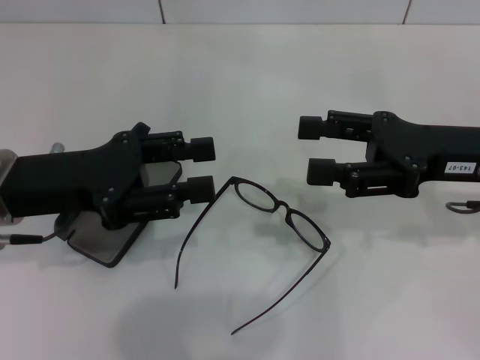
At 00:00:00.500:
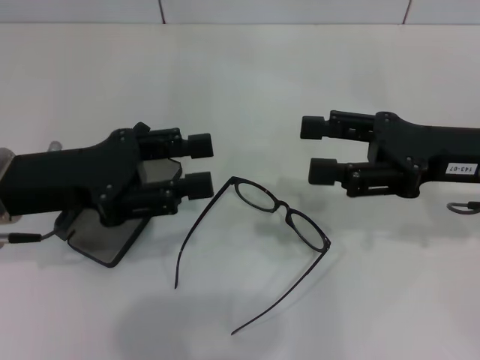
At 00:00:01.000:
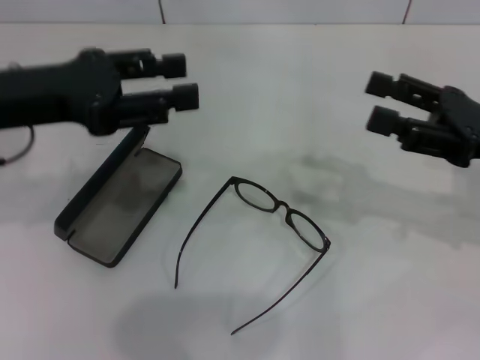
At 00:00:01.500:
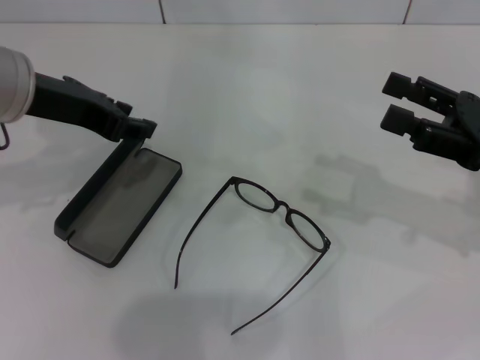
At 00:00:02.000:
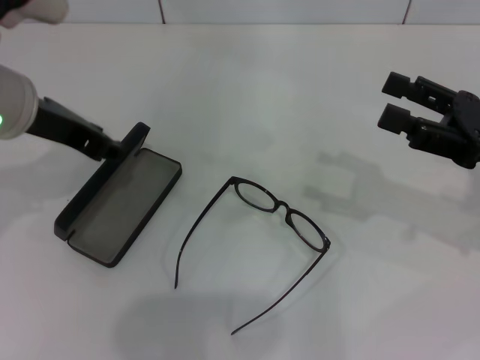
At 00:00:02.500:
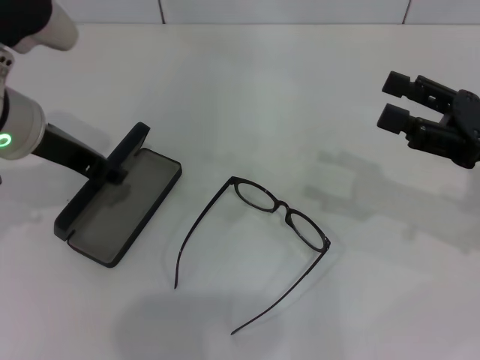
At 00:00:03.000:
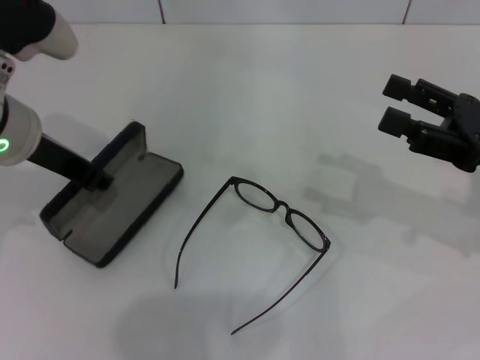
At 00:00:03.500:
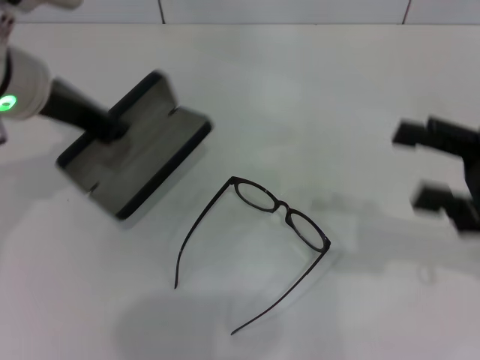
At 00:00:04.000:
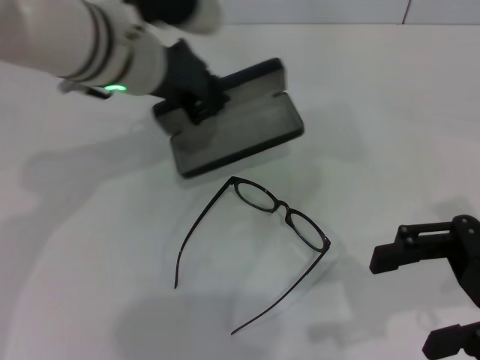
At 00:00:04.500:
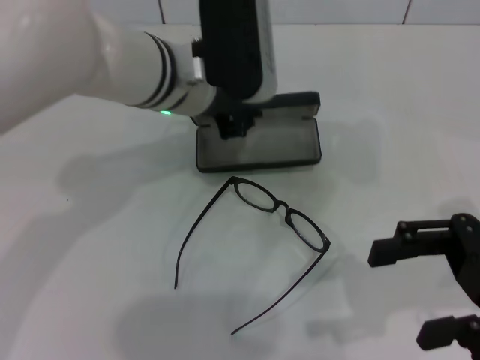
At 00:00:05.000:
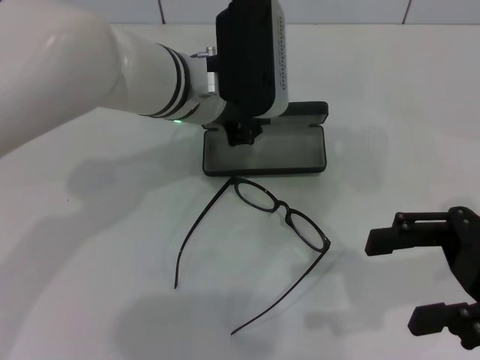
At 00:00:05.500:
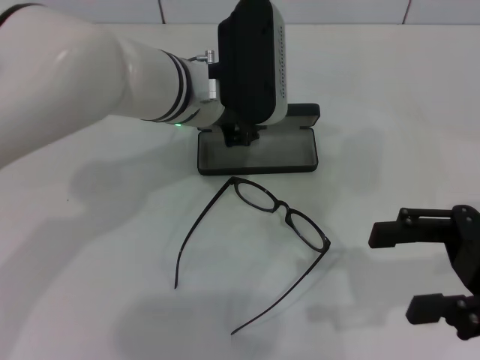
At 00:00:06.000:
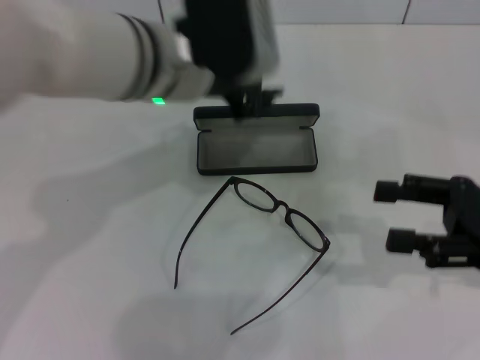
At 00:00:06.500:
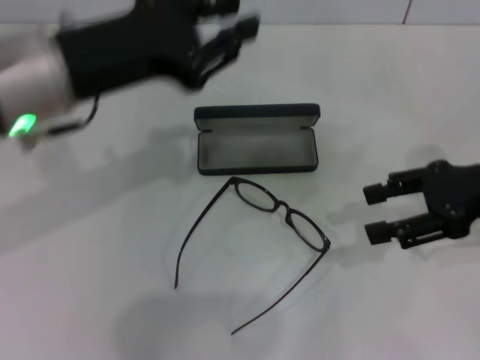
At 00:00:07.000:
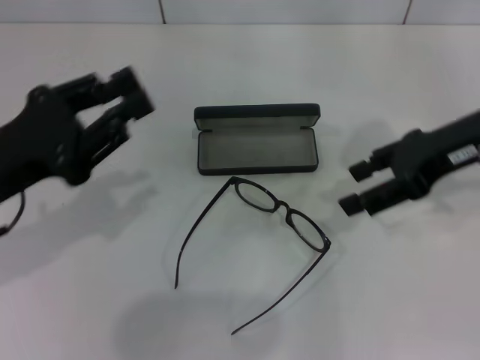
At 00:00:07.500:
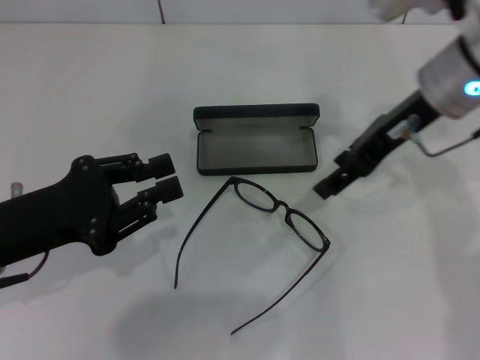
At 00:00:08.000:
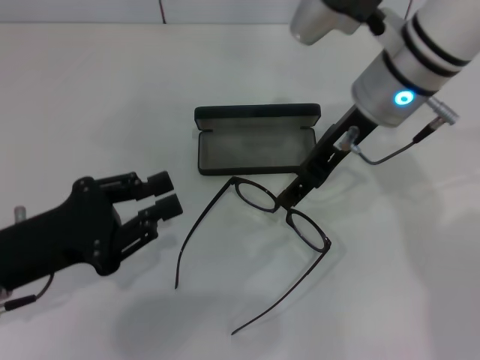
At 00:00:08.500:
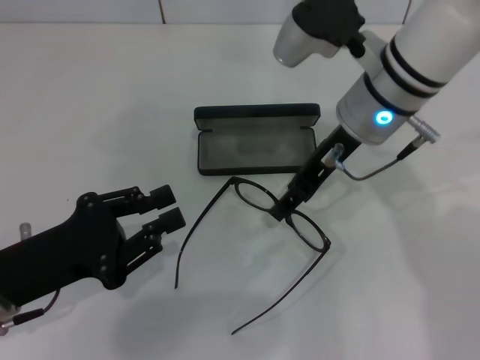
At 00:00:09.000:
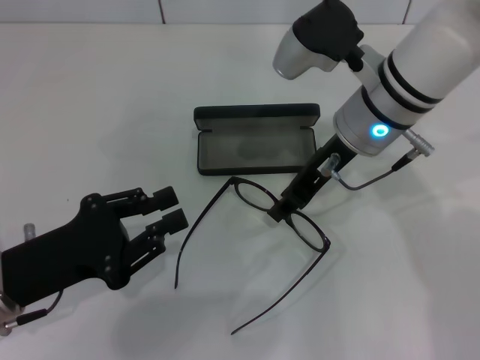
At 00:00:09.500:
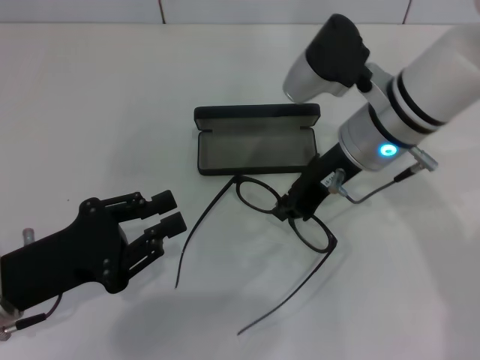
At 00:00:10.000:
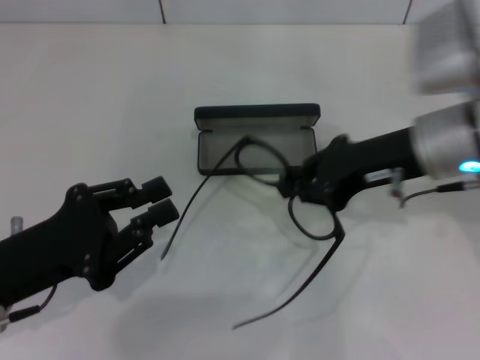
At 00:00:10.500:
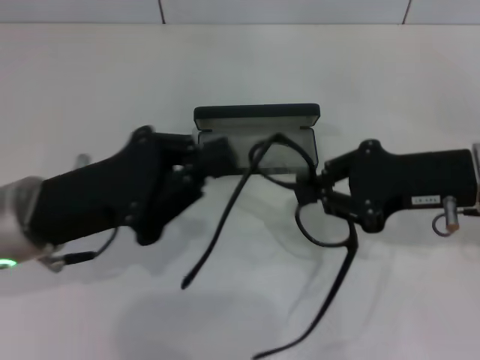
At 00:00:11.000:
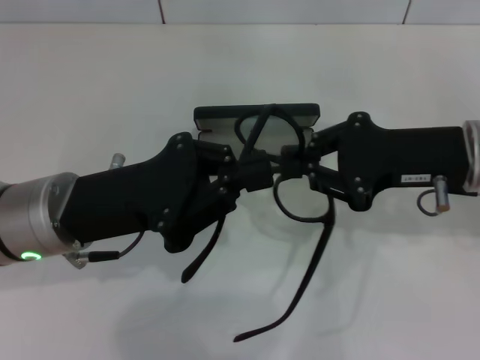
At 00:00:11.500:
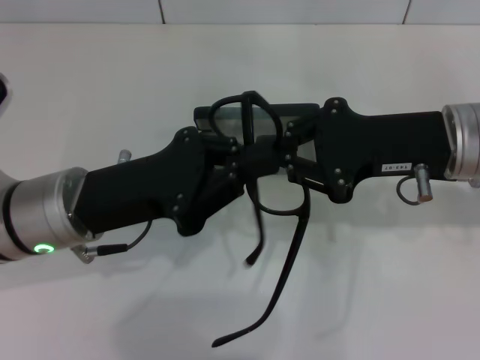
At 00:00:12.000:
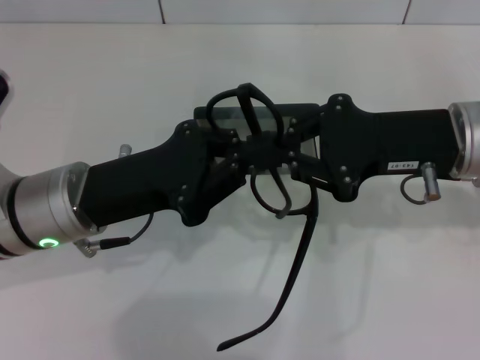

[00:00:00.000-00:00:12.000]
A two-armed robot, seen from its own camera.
Step, 00:00:00.000 to 00:00:03.000: Grab the glasses case with your left hand.
Step, 00:00:03.500 to 00:00:05.500: Place the glasses case in the center of the table with your left hand.
Step, 00:00:06.000 to 00:00:09.000: Grab the eyeglass frame with your right hand.
00:00:00.000 to 00:00:02.000: The left gripper heads upward and forward, covering some 10 cm, while the right gripper travels to the right by roughly 5 cm.
00:00:02.000 to 00:00:04.000: The left gripper is displaced to the right by about 10 cm, and closes its fingers.
00:00:06.000 to 00:00:08.000: The left gripper moves to the left, backward and downward, about 25 cm. Meanwhile the right gripper goes some 20 cm to the left and forward.
00:00:08.000 to 00:00:10.000: The right gripper goes some 10 cm to the right and backward, and closes.
00:00:10.000 to 00:00:12.000: The left gripper heads forward and to the right, covering approximately 10 cm, and closes its fingers.

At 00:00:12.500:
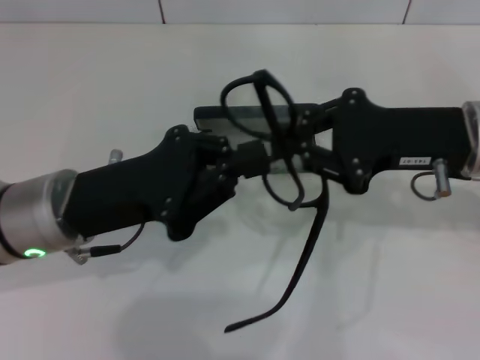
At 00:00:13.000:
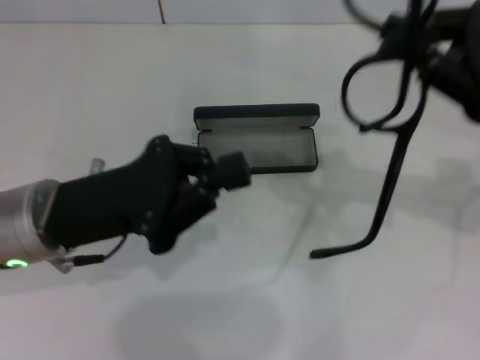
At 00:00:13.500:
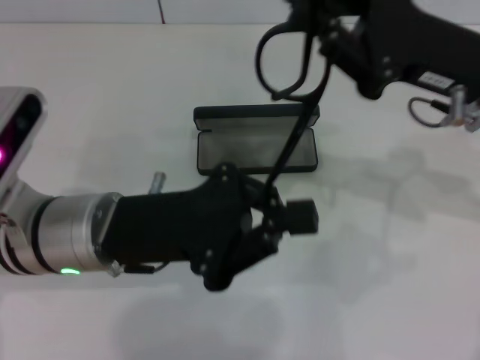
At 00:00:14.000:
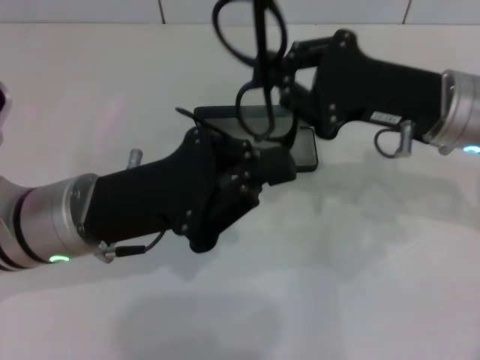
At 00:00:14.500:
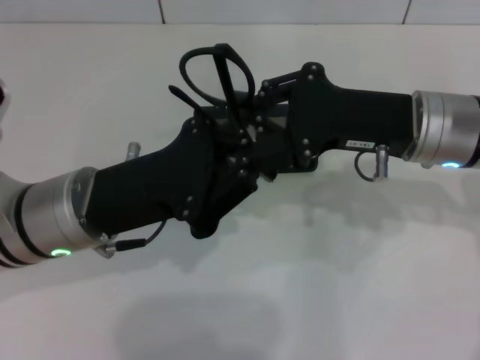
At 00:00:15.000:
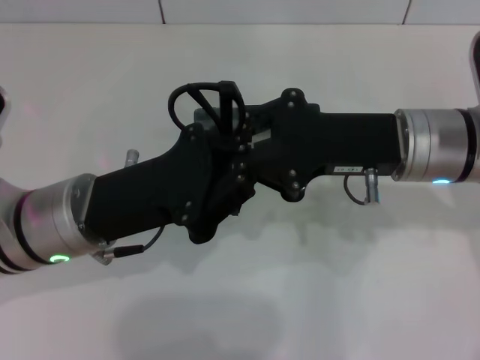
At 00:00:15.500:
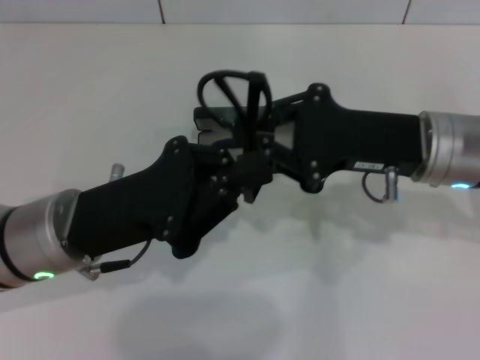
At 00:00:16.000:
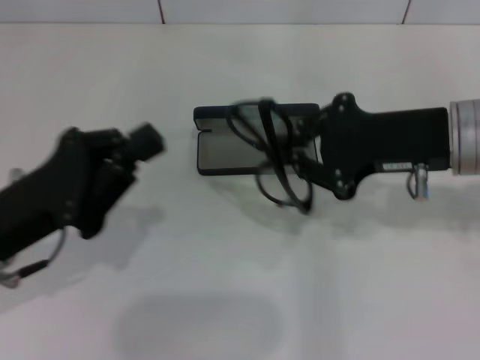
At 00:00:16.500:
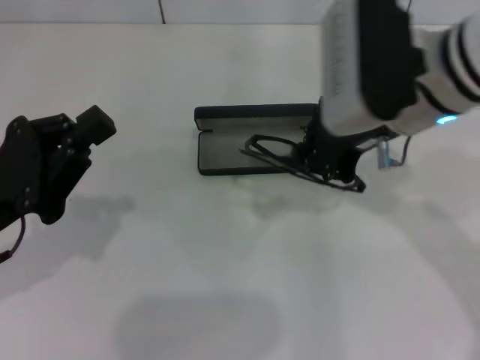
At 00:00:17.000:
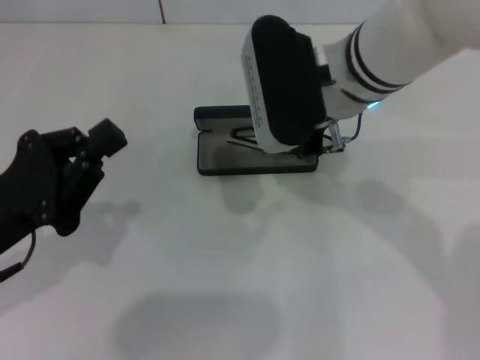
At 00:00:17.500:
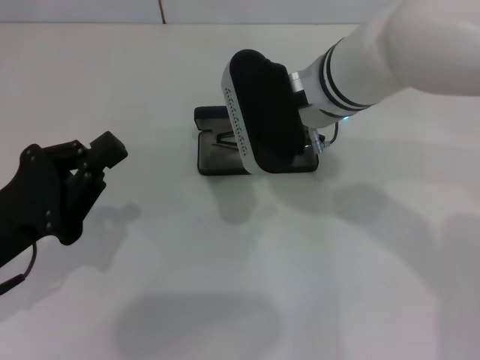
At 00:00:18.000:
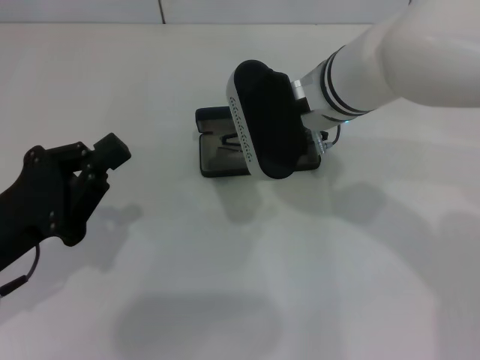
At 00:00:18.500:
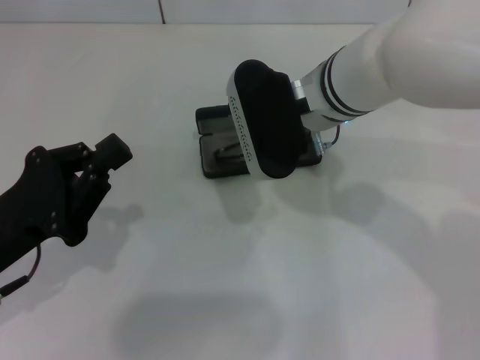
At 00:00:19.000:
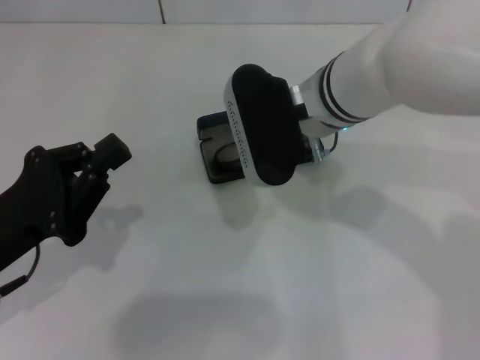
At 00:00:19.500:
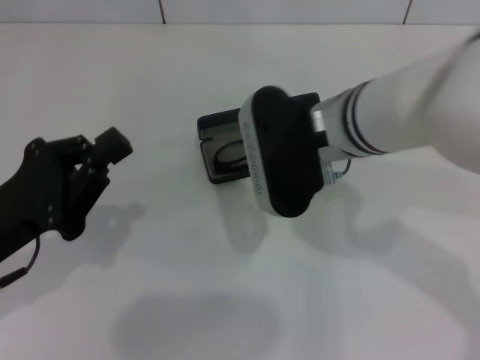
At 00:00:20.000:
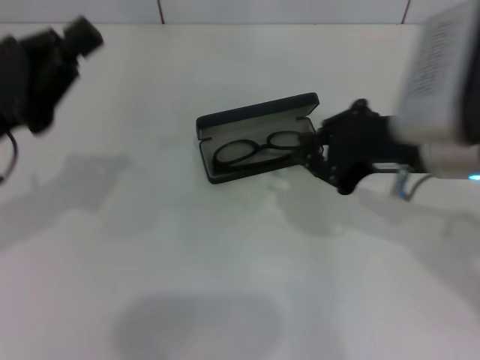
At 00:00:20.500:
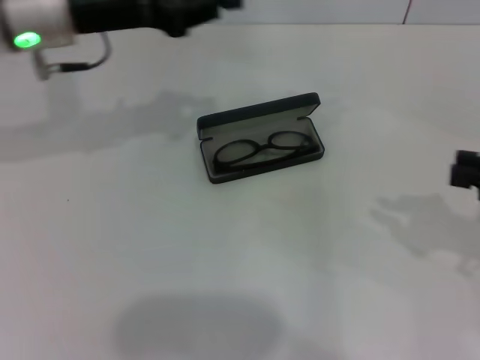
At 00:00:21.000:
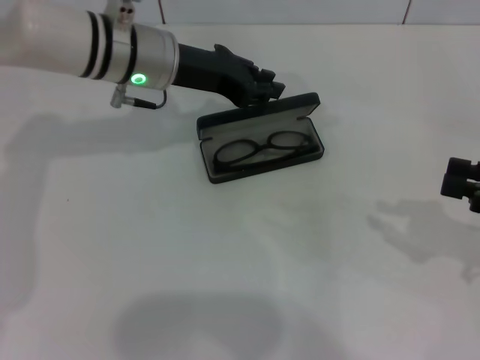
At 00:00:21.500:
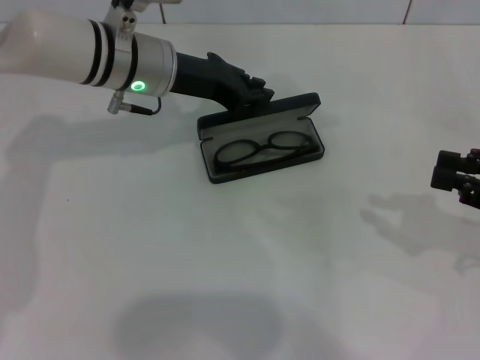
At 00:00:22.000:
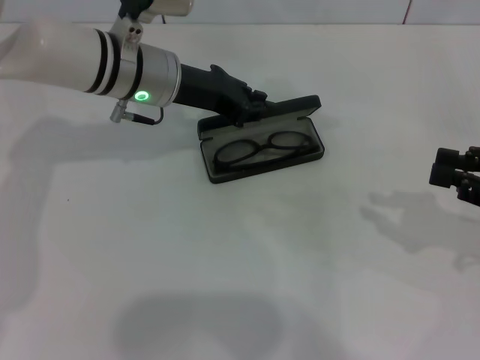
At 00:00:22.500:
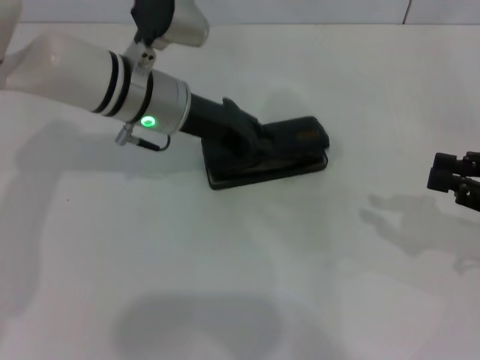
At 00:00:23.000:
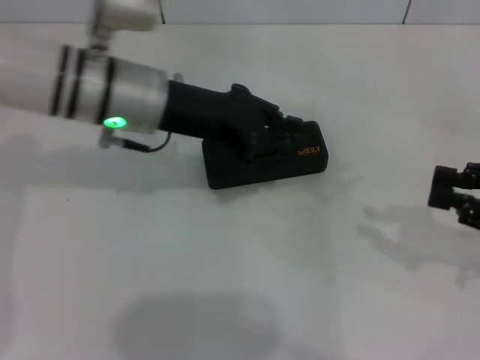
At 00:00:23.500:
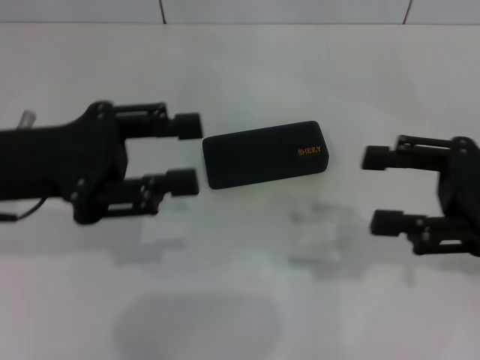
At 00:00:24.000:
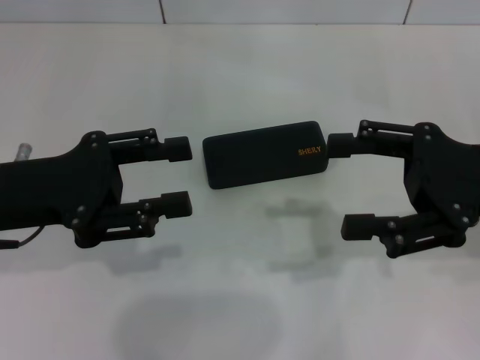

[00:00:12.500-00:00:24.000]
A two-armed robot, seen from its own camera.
Step, 00:00:12.500 to 00:00:15.000: Fold the frame with your left hand.
Step, 00:00:15.500 to 00:00:19.000: Put the glasses into the case with your right hand.
Step, 00:00:19.500 to 00:00:22.500: Close the glasses case with your left hand.
00:00:14.500 to 00:00:16.500: The left gripper travels to the left by approximately 10 cm; the right gripper moves upward and to the left, some 10 cm.
00:00:16.500 to 00:00:18.500: The right gripper moves to the left and downward, some 10 cm.
00:00:18.500 to 00:00:20.000: The right gripper goes about 15 cm to the right and backward. The left gripper goes roughly 10 cm forward and upward.
00:00:20.000 to 00:00:22.000: The right gripper moves to the right, about 15 cm. The left gripper is displaced forward and to the right by about 20 cm.
00:00:22.000 to 00:00:24.000: The left gripper shifts about 20 cm backward and to the left, and opens; the right gripper goes roughly 10 cm to the left, and opens up.
